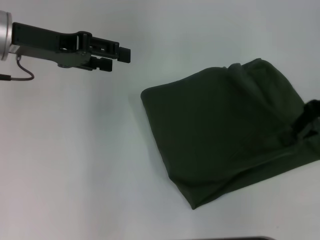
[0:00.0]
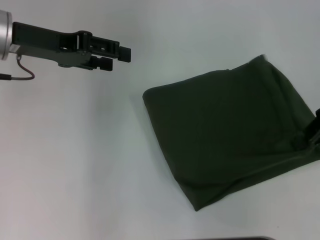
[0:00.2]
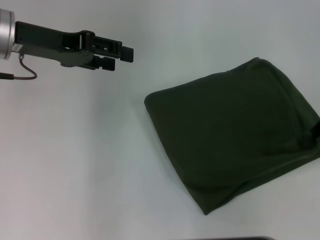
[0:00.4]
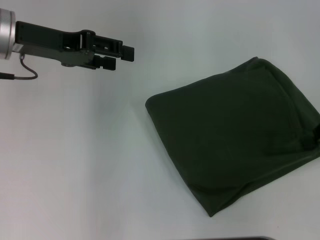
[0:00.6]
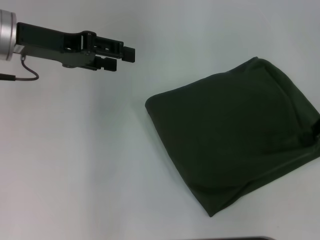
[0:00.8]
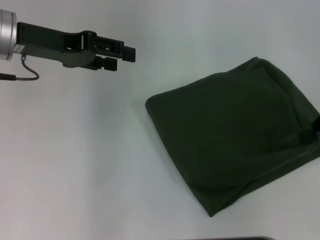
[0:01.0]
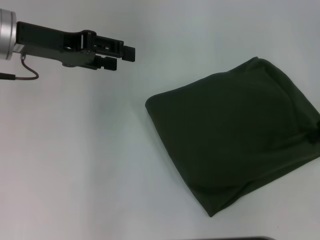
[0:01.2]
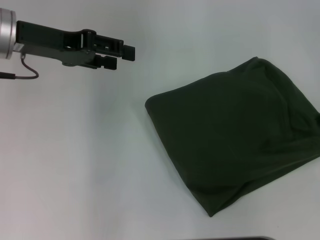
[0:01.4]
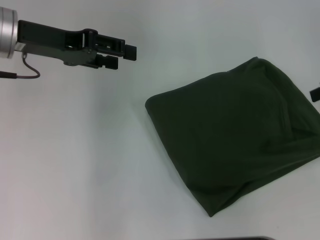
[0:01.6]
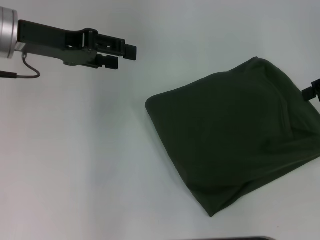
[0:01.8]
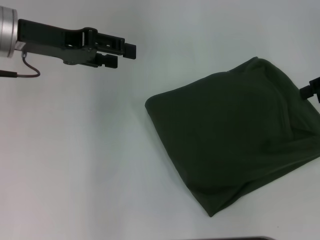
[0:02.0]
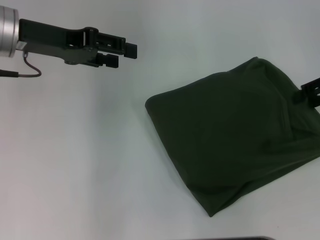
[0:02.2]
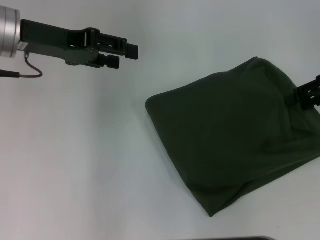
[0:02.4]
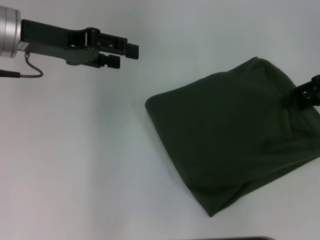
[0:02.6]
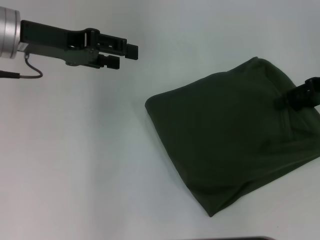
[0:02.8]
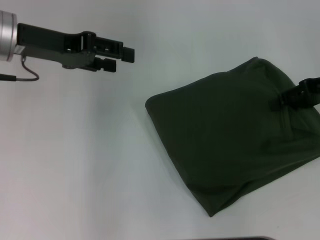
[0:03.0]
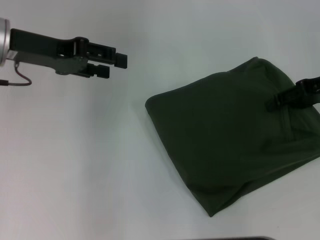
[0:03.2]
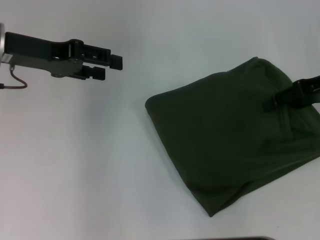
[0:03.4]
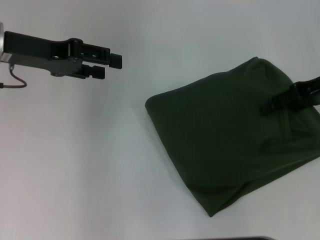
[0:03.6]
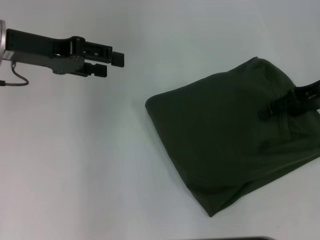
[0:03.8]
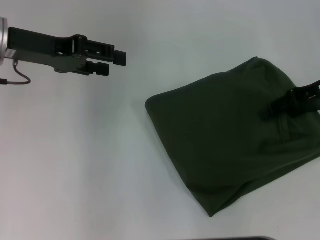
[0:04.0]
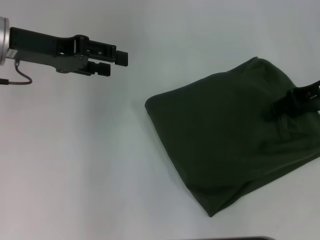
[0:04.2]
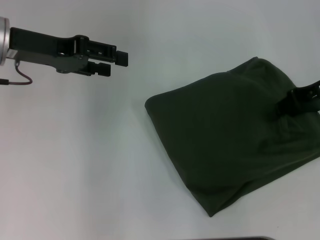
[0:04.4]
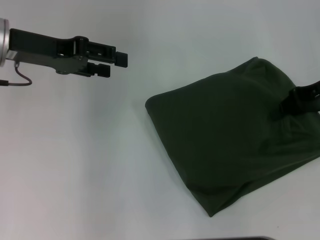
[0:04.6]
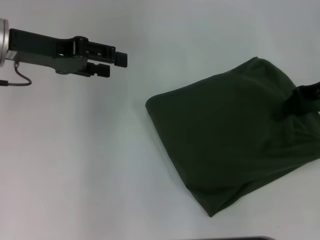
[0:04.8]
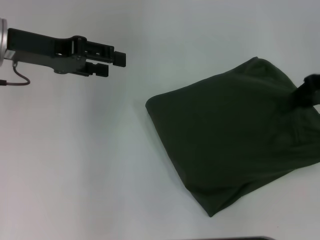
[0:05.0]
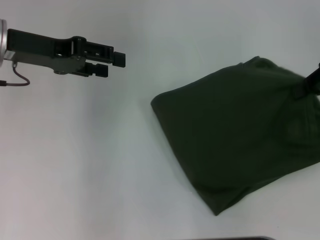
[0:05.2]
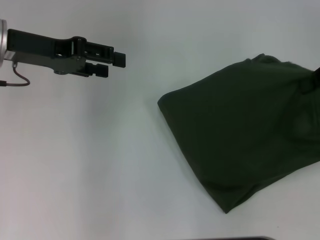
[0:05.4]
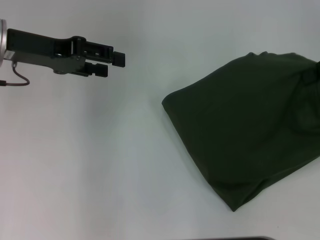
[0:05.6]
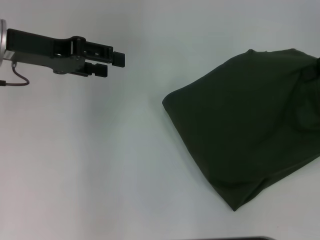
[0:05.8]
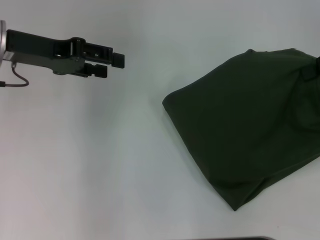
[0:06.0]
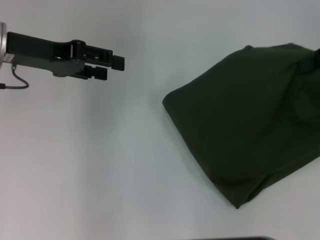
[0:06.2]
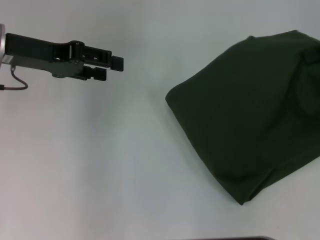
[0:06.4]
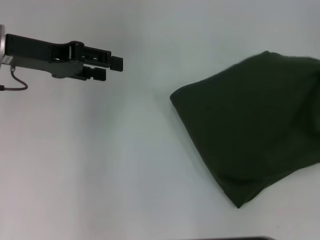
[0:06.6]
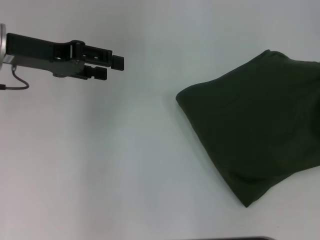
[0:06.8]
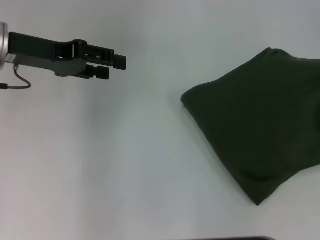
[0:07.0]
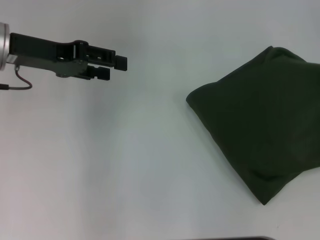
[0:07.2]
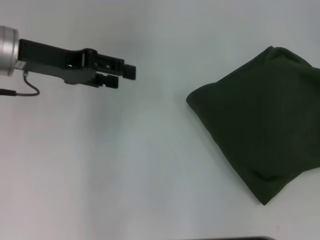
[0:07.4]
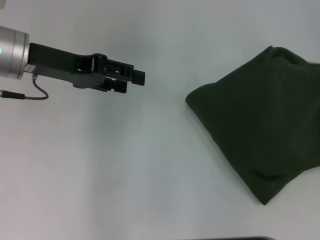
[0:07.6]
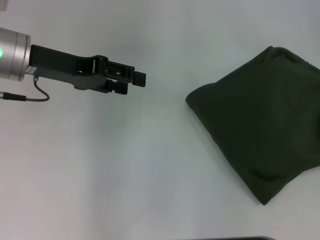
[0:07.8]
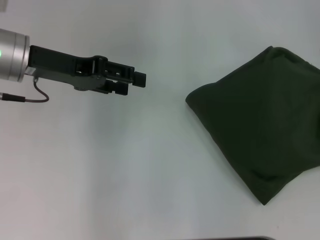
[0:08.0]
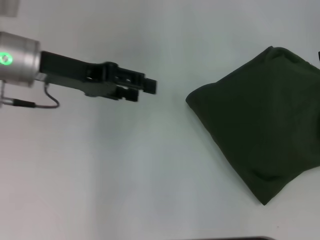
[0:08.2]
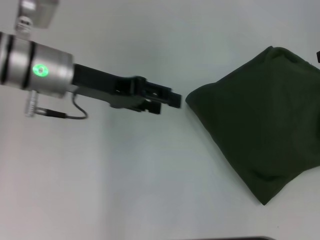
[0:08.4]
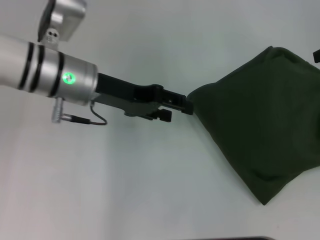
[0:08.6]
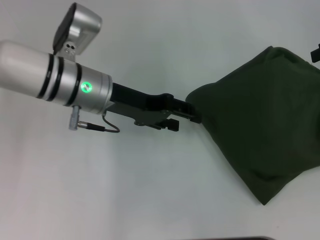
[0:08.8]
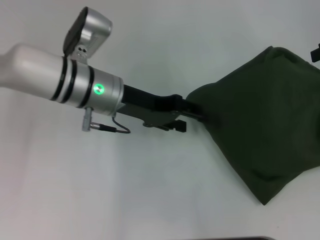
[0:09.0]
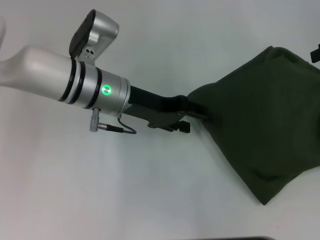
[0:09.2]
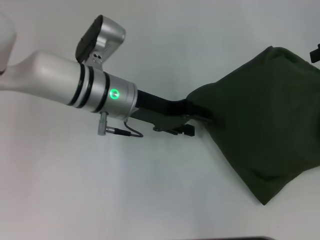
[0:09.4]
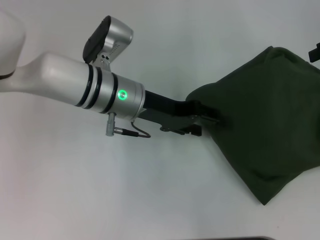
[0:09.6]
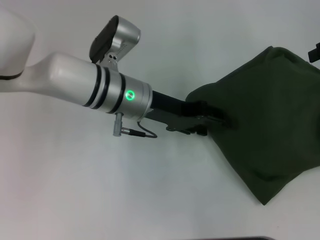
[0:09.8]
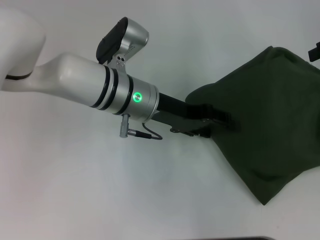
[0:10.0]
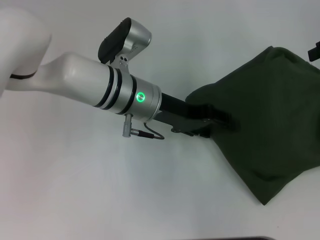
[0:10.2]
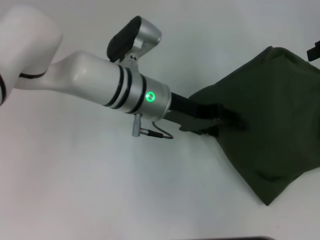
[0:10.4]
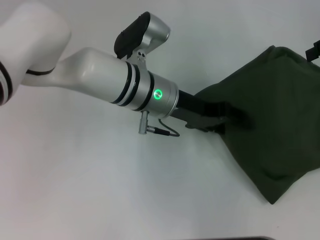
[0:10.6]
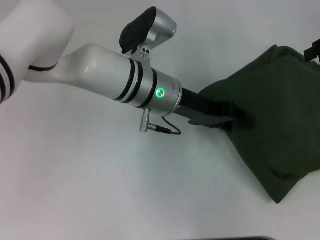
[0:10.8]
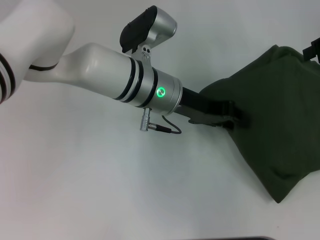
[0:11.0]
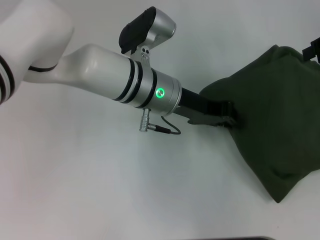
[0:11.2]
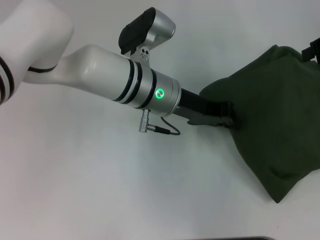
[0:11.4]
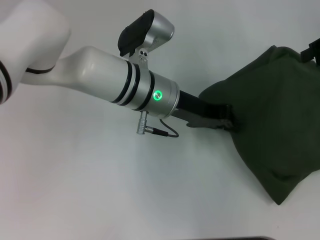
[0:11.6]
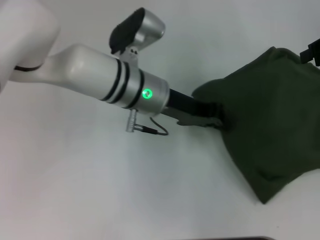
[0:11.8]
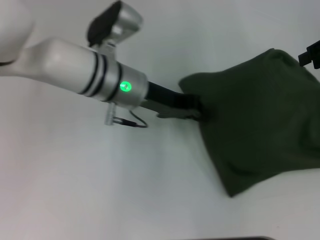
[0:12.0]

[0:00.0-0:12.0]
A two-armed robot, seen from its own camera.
0:00.0 to 0:01.6: The right gripper travels to the right by some 5 cm, and opens its fingers.
0:01.6 to 0:03.0: The right gripper changes place by roughly 5 cm.
0:03.0 to 0:04.4: The grippers stay close to where they were, moving slightly.
0:04.4 to 0:06.0: The right gripper travels upward by roughly 10 cm, and closes up.
0:07.6 to 0:09.0: The right gripper opens up; the left gripper shifts about 10 cm to the right and downward.
0:09.0 to 0:10.4: The left gripper moves to the right, approximately 5 cm.
0:10.4 to 0:12.0: The left gripper closes its fingers.

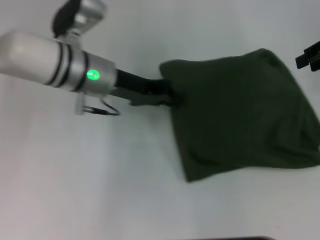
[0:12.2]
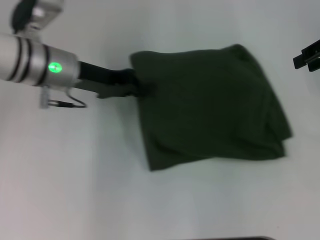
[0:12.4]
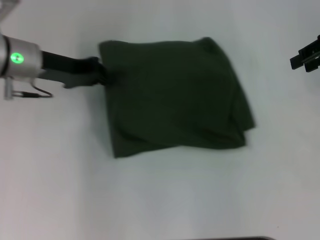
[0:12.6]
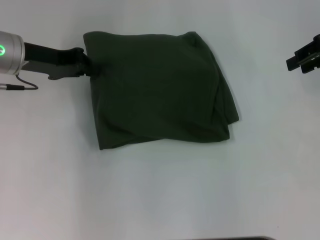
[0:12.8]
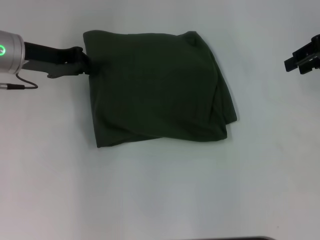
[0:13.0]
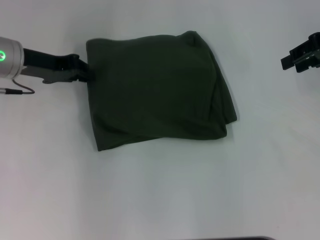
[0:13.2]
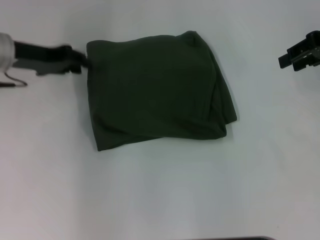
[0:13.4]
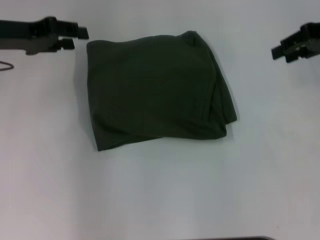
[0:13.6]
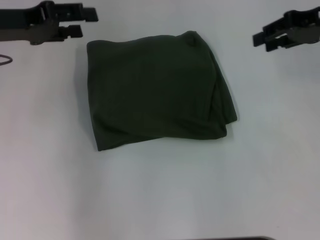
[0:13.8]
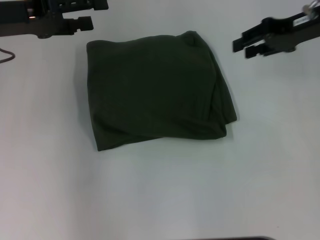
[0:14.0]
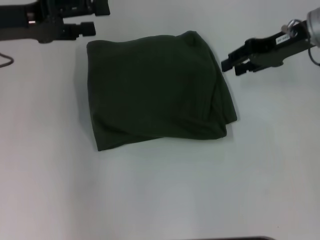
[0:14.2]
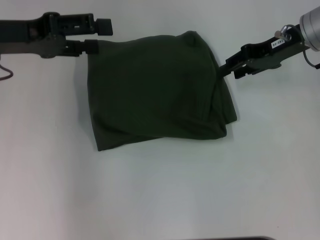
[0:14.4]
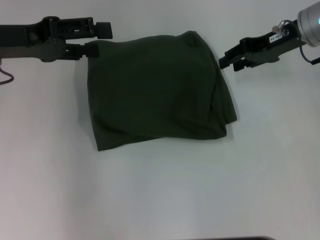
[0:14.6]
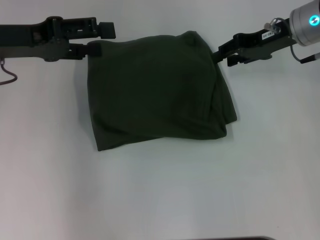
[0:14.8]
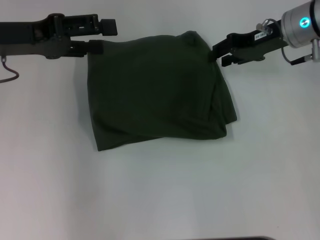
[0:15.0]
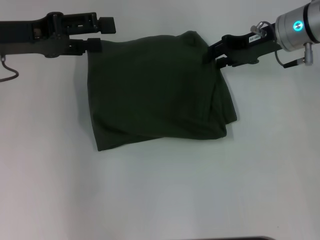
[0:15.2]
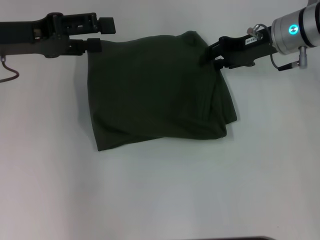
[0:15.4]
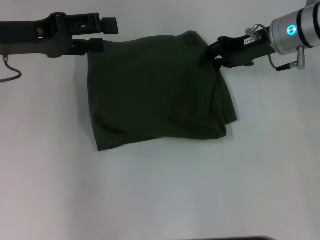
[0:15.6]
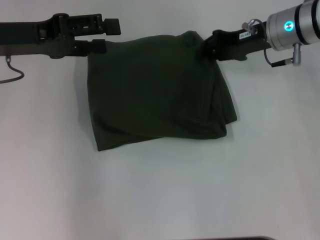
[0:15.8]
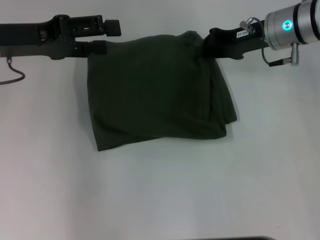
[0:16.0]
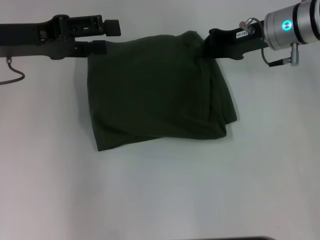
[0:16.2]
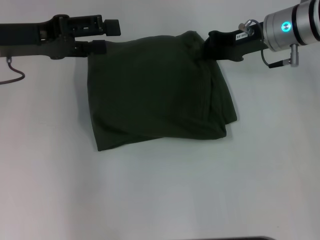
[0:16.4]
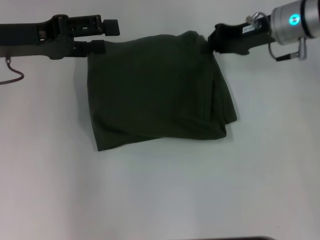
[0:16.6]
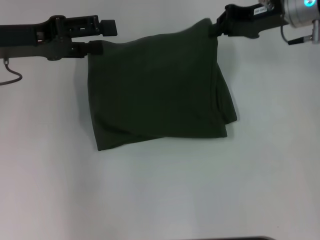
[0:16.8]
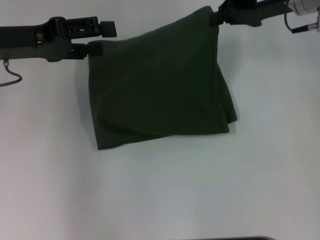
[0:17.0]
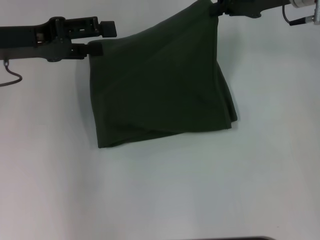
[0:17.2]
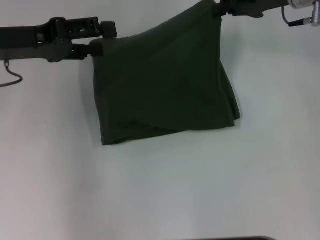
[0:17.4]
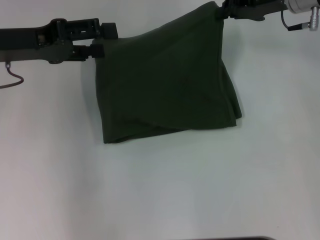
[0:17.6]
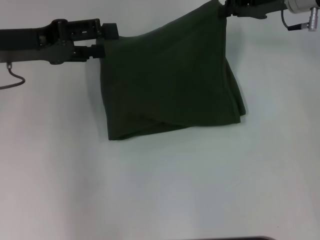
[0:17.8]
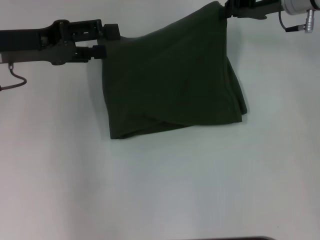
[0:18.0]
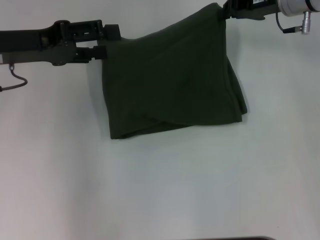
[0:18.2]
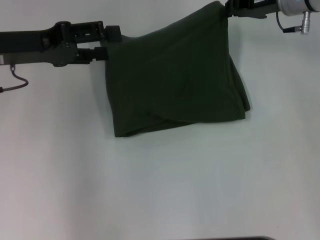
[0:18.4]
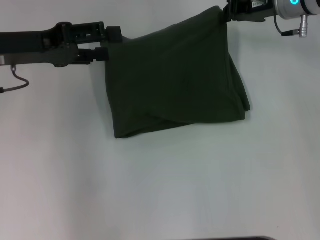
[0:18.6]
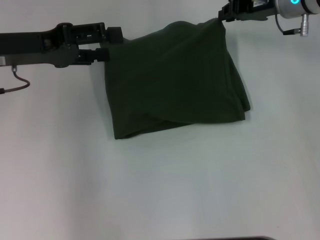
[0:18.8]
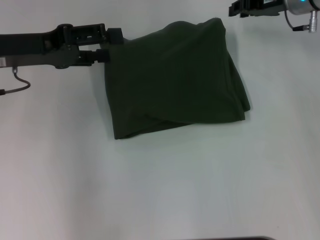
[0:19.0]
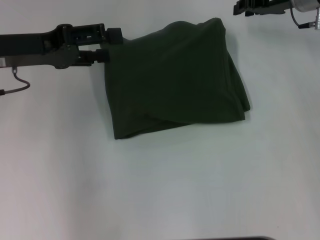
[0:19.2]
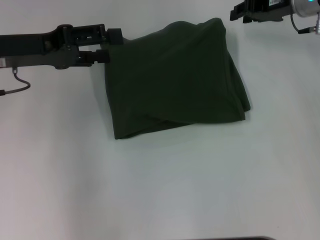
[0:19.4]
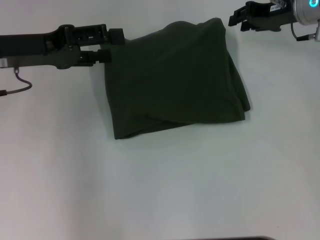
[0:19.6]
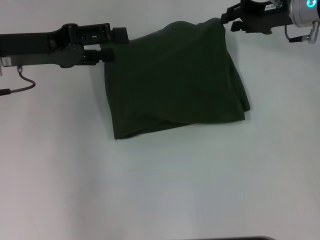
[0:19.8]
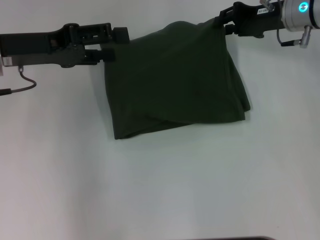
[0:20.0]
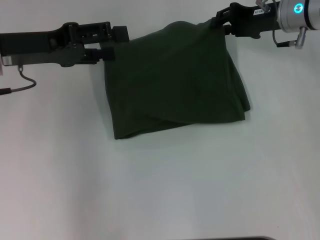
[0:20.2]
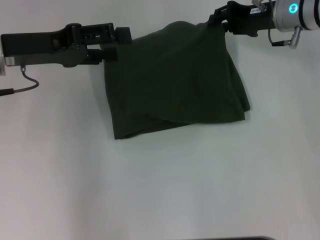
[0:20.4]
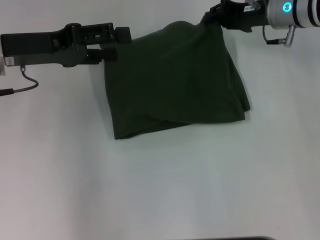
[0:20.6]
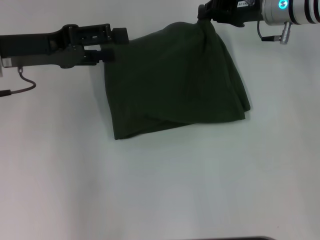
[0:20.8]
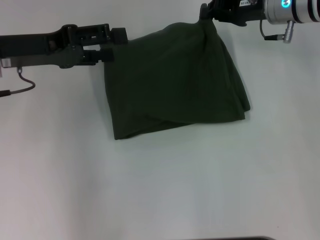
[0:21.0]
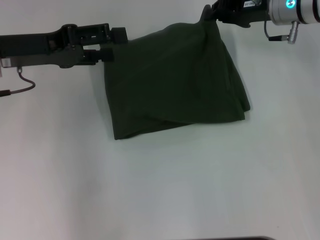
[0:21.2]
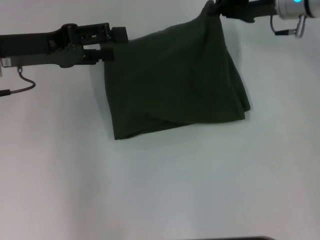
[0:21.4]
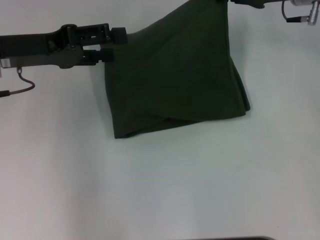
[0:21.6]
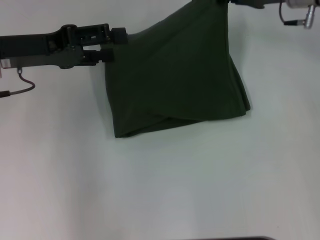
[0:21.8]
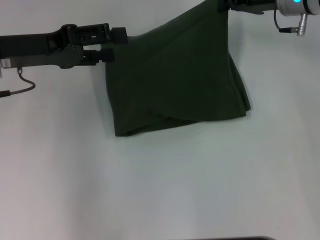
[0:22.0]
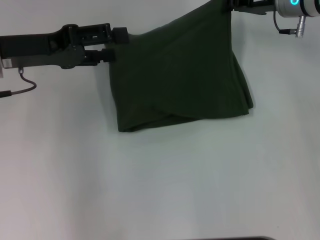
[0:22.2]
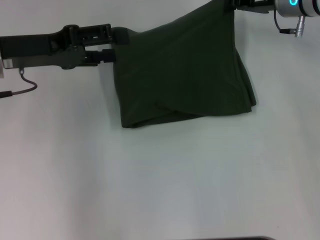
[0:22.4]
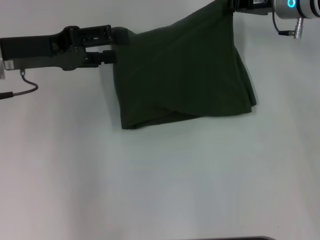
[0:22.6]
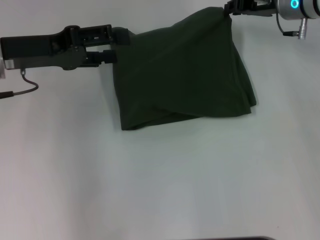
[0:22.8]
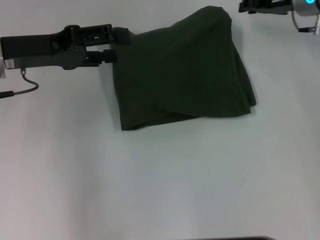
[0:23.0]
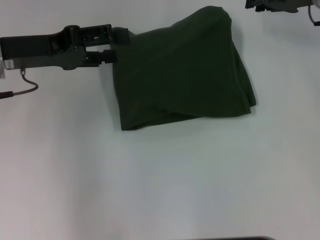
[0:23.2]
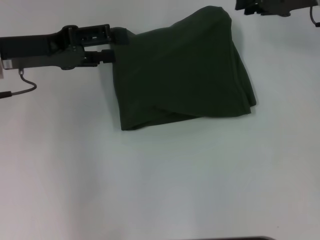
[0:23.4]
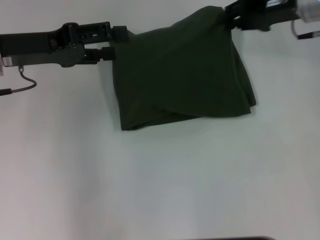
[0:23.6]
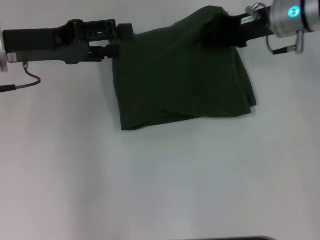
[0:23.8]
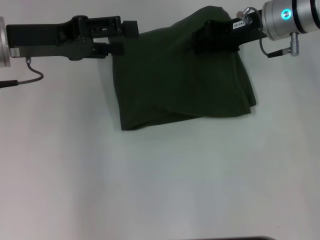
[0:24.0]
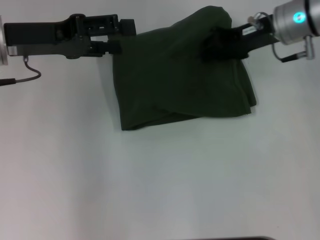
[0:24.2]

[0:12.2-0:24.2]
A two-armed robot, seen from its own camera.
0:12.2 to 0:13.8: The left gripper travels to the left and upward by about 15 cm, and opens up.
0:13.8 to 0:15.2: The right gripper is displaced to the left and downward by some 10 cm; the left gripper opens its fingers.
0:15.2 to 0:16.6: The right gripper closes up.
0:16.6 to 0:18.2: The grippers make only small movements.
0:18.2 to 0:19.8: The right gripper opens its fingers.
0:19.8 to 0:21.2: The right gripper closes its fingers.
0:21.2 to 0:22.6: There are only small adjustments of the grippers.
